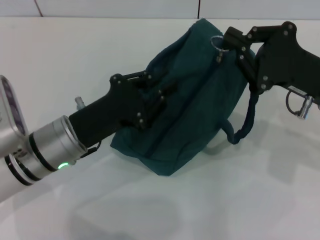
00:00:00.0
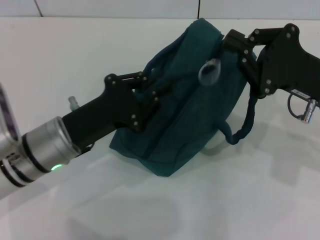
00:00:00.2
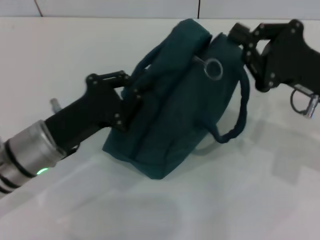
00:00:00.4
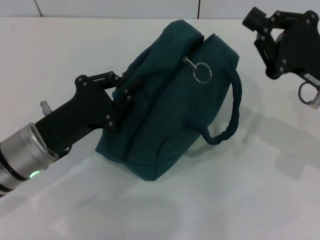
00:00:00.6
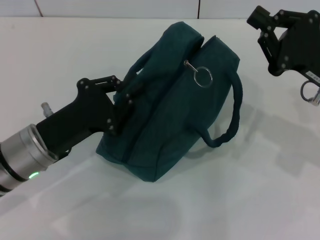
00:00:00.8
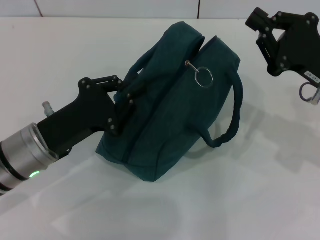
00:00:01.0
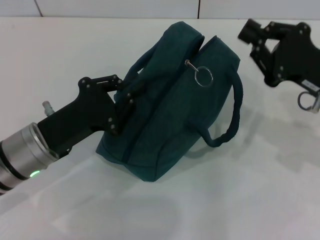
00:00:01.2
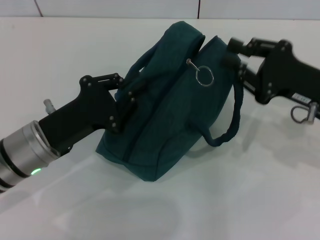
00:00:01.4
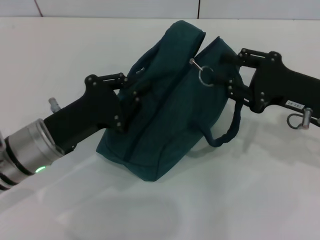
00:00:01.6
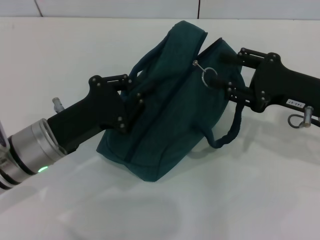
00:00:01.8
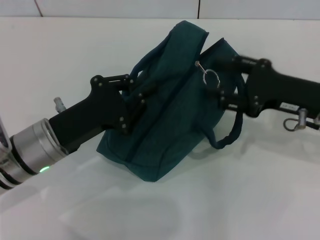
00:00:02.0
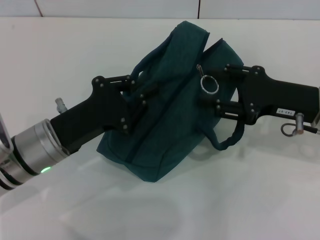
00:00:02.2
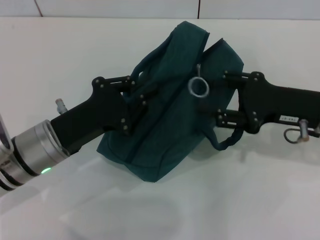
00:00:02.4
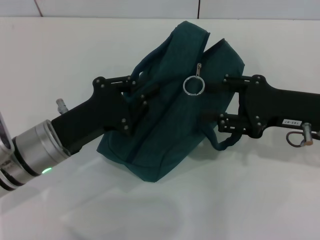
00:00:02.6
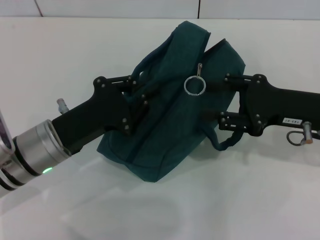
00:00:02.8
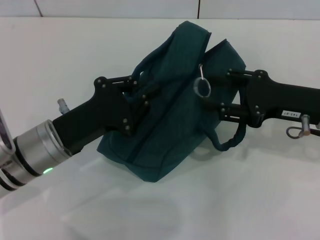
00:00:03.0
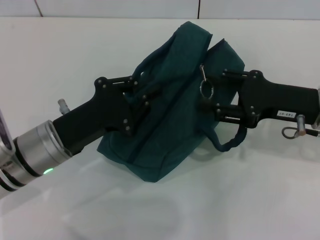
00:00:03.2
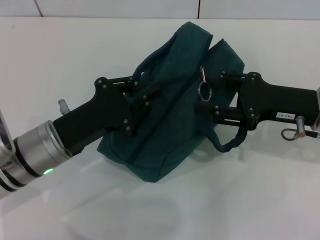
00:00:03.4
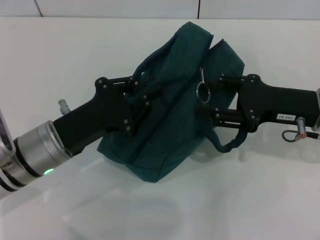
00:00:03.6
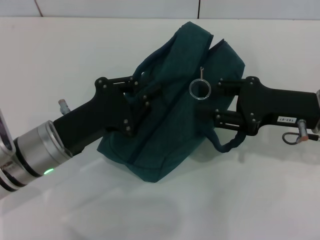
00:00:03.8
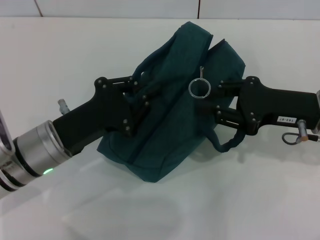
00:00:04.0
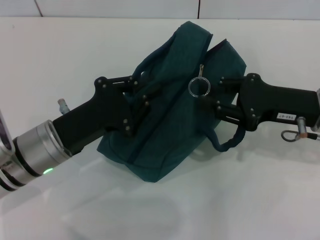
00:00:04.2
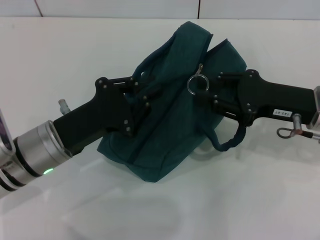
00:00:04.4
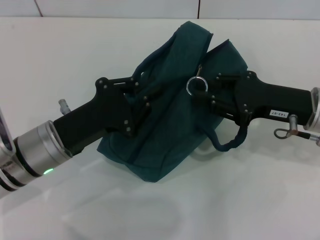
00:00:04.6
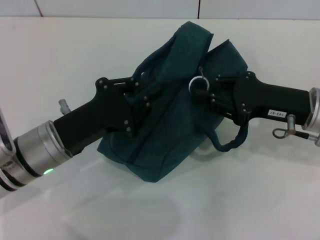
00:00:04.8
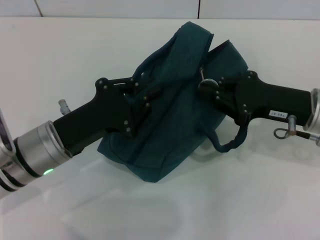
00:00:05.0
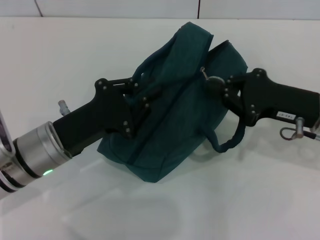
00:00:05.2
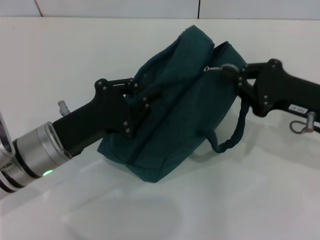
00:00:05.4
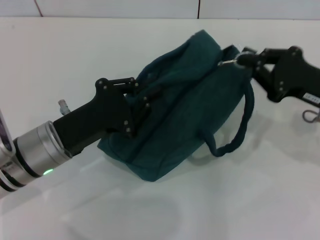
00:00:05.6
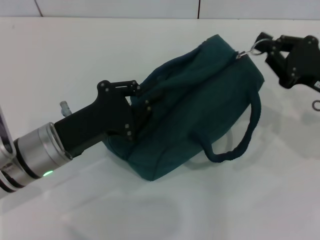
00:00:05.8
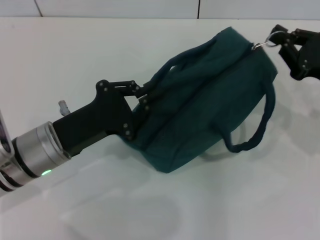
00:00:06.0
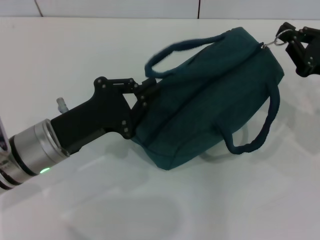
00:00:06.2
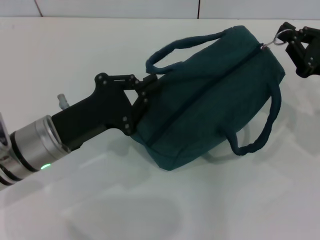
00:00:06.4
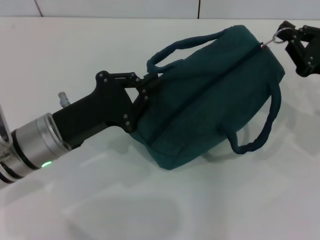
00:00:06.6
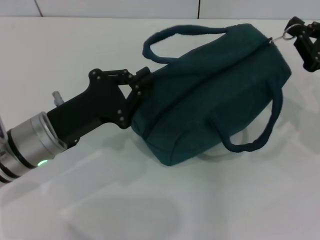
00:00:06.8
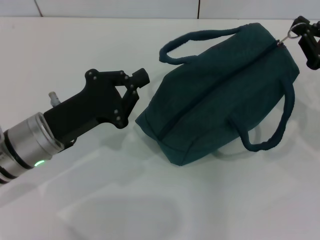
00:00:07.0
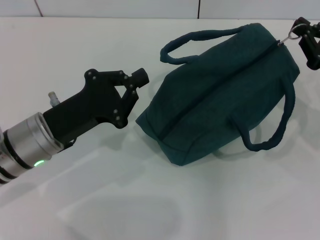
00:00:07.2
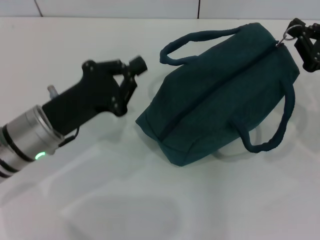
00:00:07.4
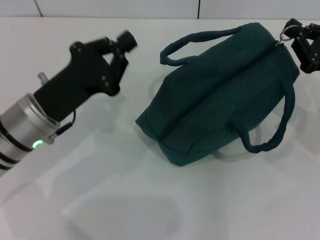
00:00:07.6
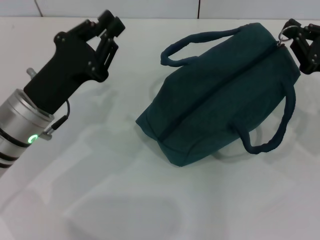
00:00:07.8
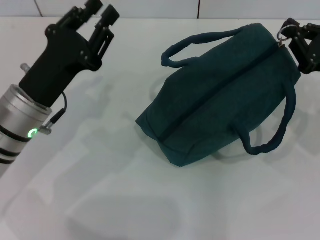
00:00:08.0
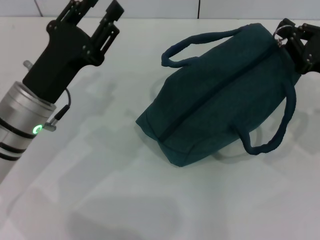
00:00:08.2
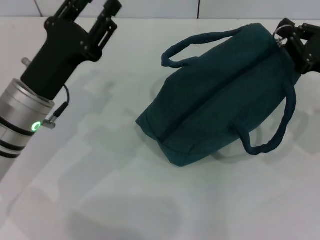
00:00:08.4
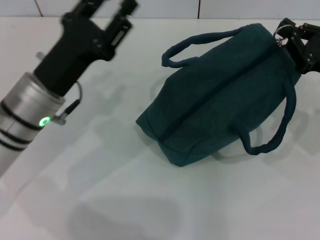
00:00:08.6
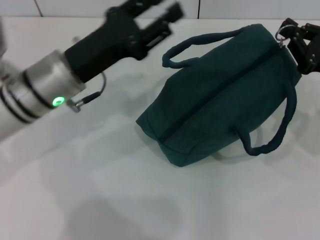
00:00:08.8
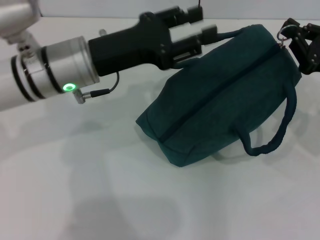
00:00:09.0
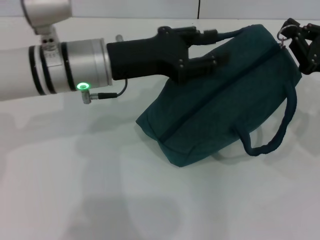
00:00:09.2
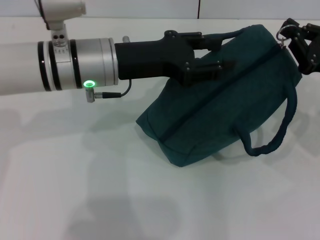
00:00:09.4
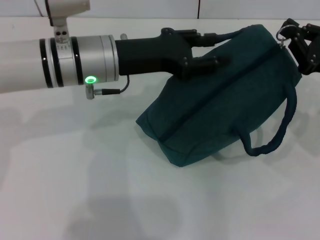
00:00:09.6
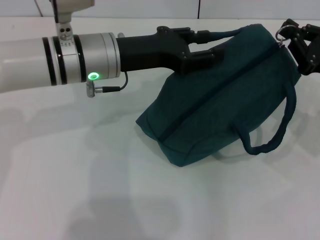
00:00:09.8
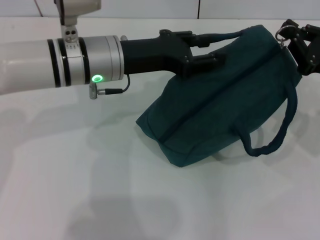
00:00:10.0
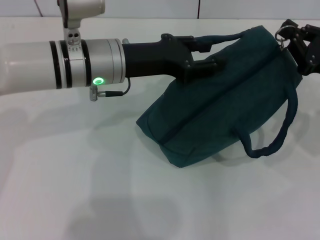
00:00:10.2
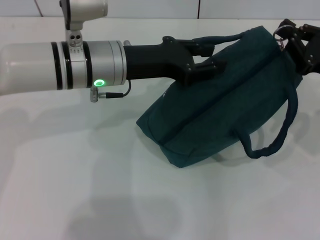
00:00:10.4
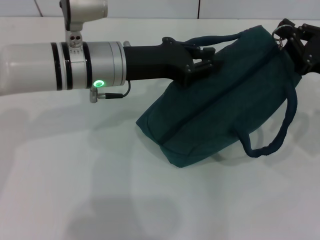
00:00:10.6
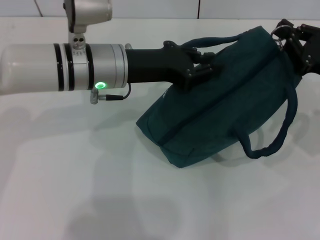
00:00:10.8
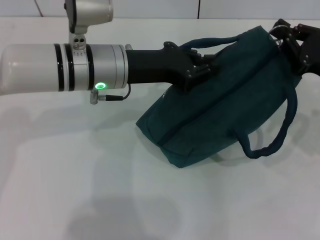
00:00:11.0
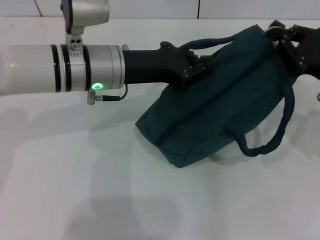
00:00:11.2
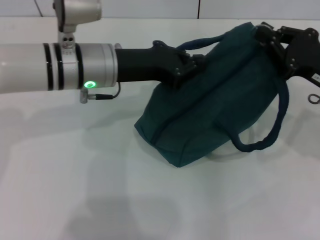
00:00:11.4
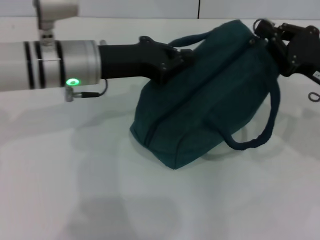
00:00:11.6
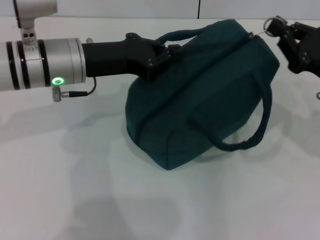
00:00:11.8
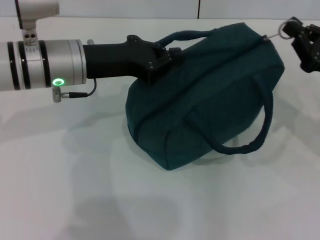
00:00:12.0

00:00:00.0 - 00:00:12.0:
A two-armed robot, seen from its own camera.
00:00:01.6 - 00:00:03.0: The right gripper opens.
00:00:03.0 - 00:00:04.4: Both grippers stay about where they are.
00:00:04.4 - 00:00:06.0: The right gripper travels to the right by roughly 5 cm, and closes.
00:00:07.6 - 00:00:09.0: The left gripper shifts some 10 cm upward, forward and to the right, and opens its fingers.
00:00:09.0 - 00:00:10.4: The grippers stay close to where they were, moving slightly.
00:00:10.4 - 00:00:12.0: The left gripper closes its fingers.

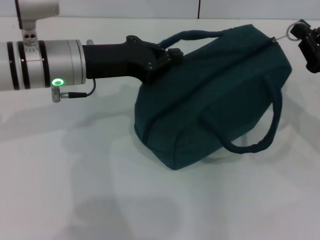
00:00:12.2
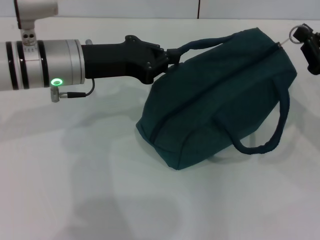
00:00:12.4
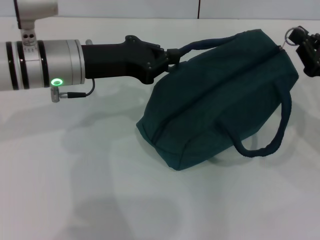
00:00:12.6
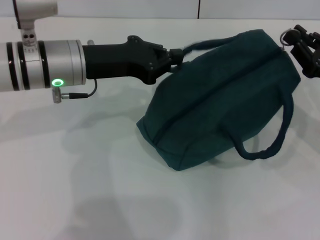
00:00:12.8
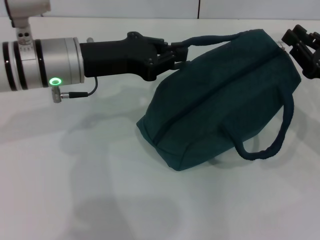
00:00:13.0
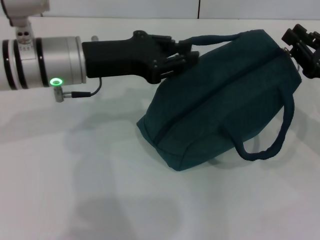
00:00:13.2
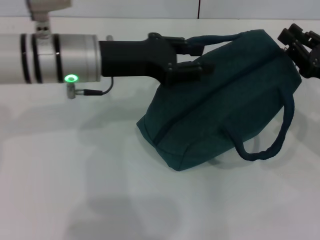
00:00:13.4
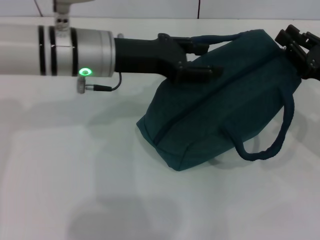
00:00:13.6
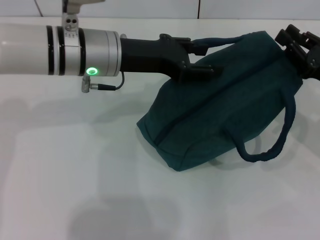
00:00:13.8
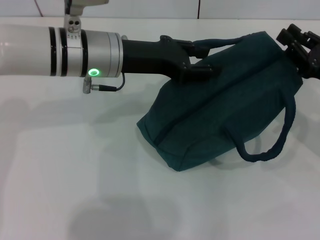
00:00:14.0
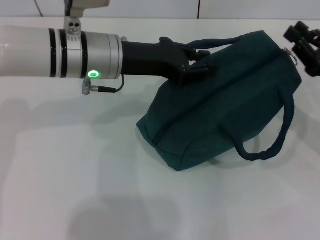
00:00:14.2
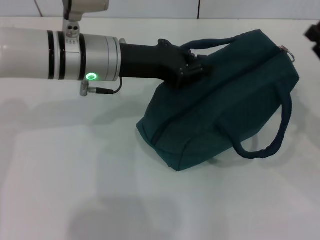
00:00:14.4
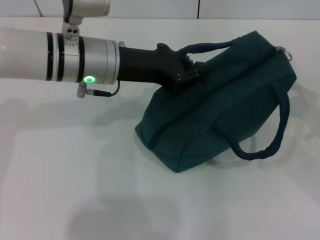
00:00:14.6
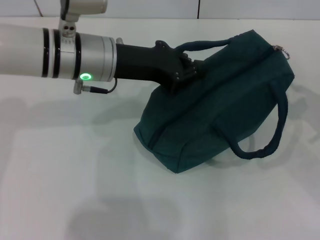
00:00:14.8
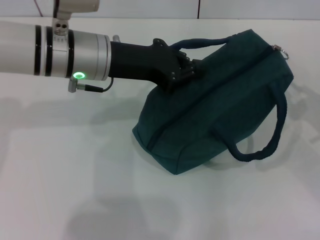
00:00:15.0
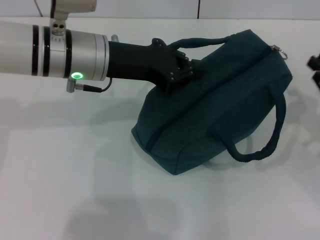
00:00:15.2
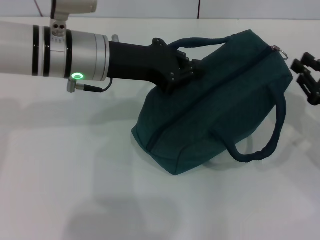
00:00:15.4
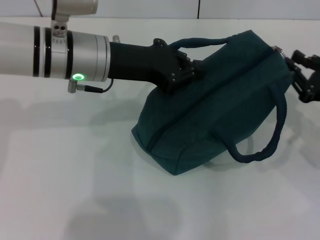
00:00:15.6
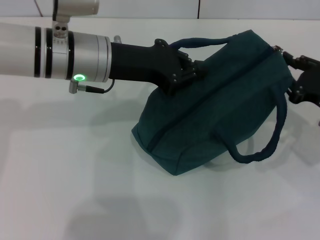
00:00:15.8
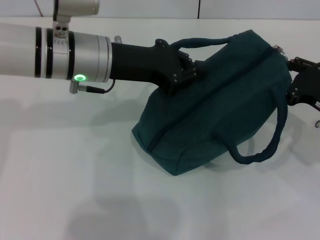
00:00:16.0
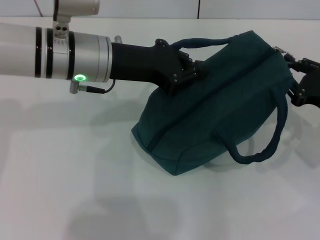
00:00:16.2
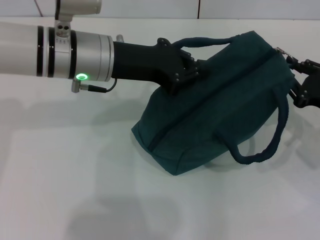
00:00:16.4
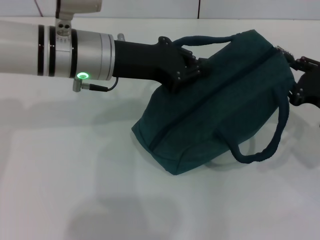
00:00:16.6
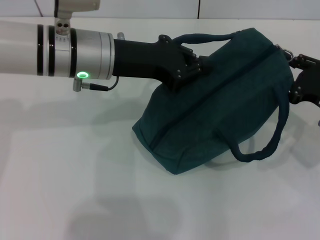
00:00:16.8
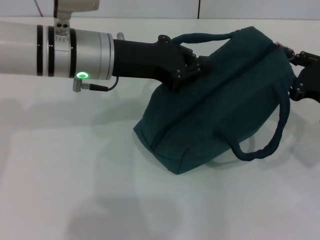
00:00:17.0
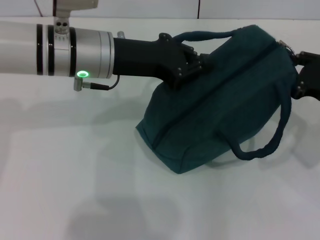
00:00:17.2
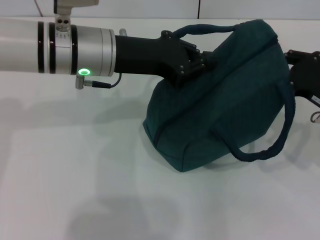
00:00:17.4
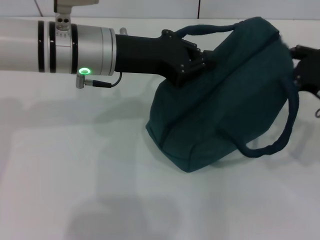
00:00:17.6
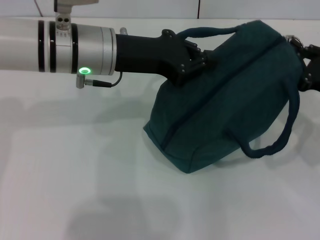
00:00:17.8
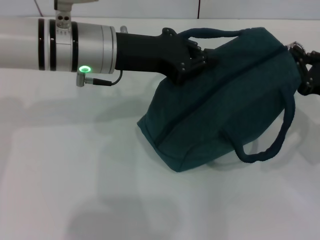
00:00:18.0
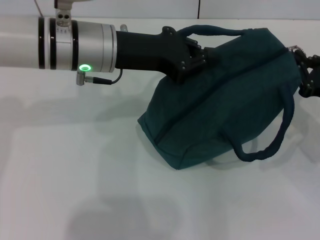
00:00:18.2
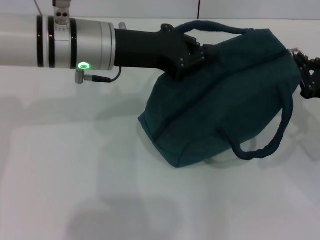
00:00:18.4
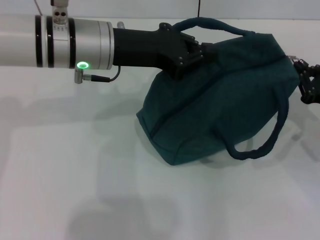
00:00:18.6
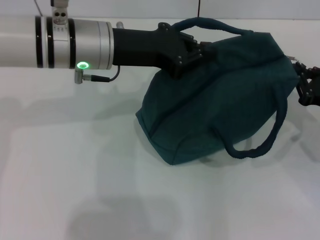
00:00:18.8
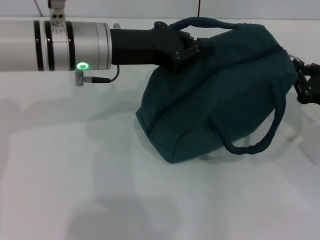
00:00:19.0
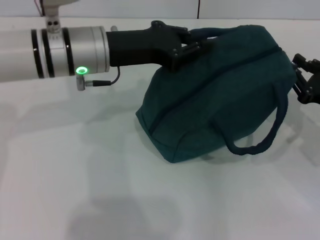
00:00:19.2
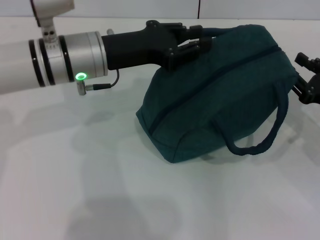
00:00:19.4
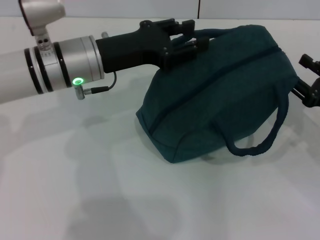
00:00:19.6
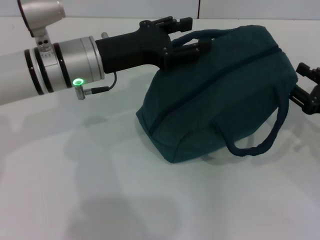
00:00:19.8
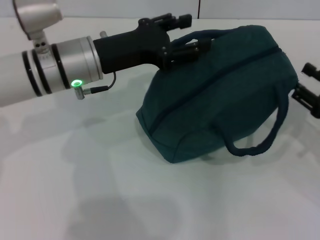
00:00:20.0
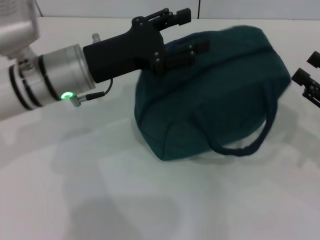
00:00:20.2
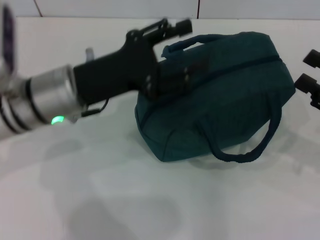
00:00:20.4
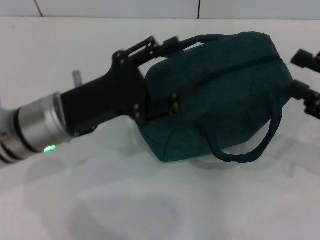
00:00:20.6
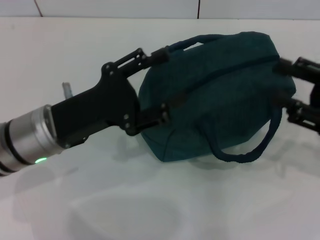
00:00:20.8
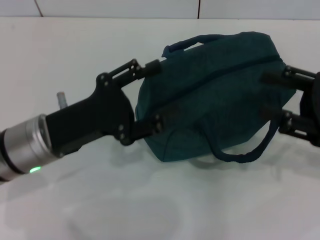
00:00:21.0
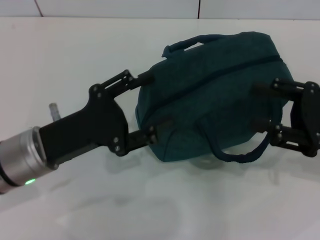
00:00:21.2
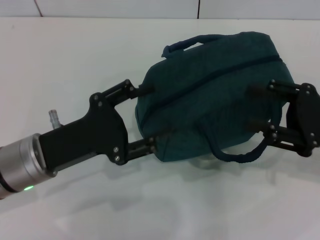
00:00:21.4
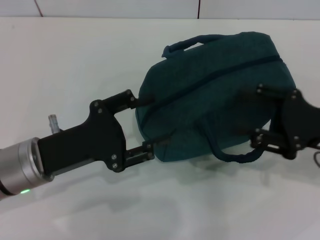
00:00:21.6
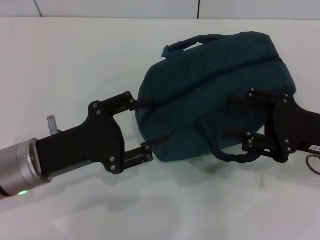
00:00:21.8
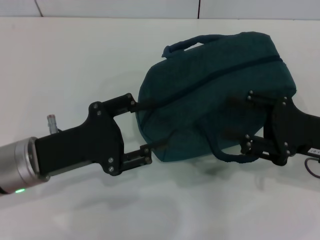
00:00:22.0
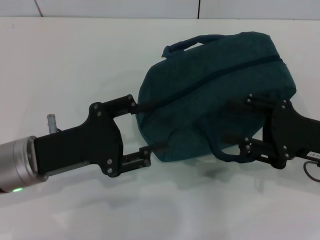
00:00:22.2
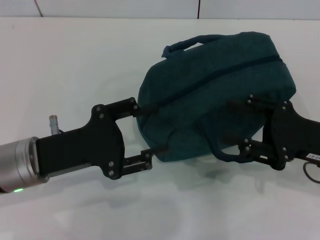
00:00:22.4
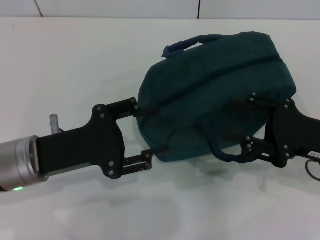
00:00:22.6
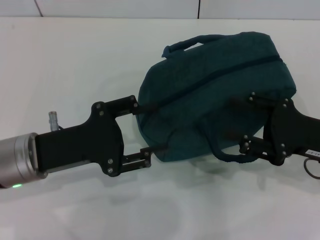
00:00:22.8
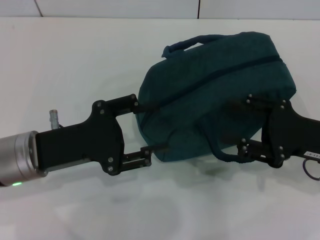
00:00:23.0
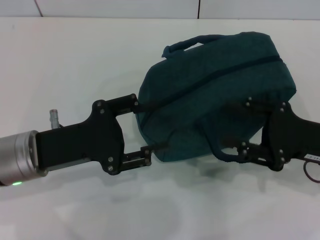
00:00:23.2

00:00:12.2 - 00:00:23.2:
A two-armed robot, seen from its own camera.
Step, 00:00:12.2 - 00:00:19.2: Zip up the lunch bag with your right hand.
Step, 00:00:19.4 - 00:00:19.8: Hold the lunch bag with your left hand.
00:00:12.2 - 00:00:13.8: The left gripper opens up.
00:00:13.8 - 00:00:15.4: The left gripper closes its fingers.
00:00:15.4 - 00:00:18.4: The grippers stay close to where they were, moving slightly.
00:00:18.4 - 00:00:20.0: The right gripper opens up. Meanwhile the left gripper opens.
00:00:20.0 - 00:00:21.6: The left gripper travels backward, to the left and downward by some 15 cm, while the right gripper travels to the left by about 5 cm.
00:00:21.6 - 00:00:23.2: There are only small adjustments of the grippers.
